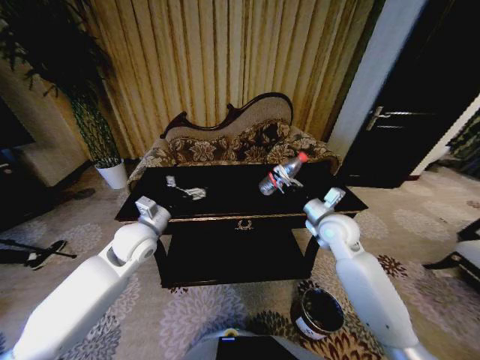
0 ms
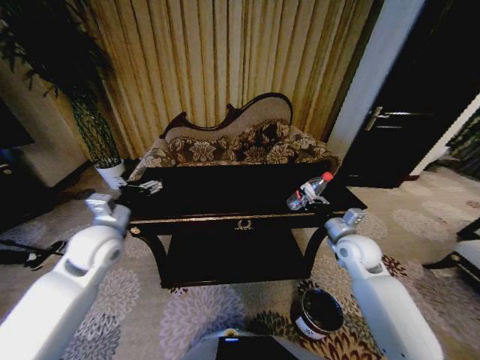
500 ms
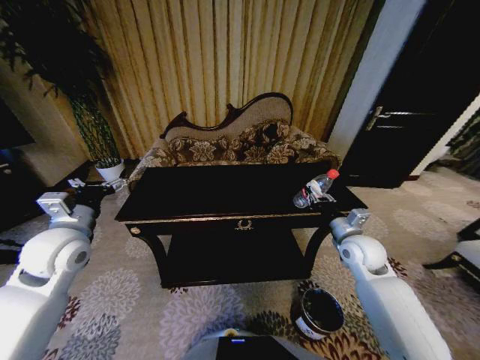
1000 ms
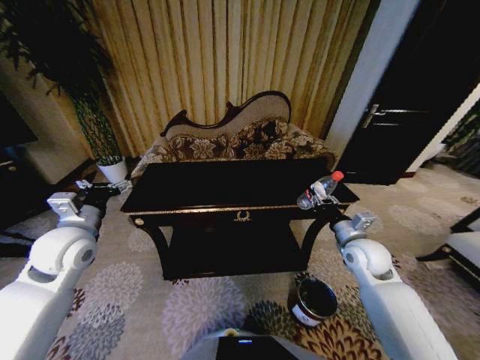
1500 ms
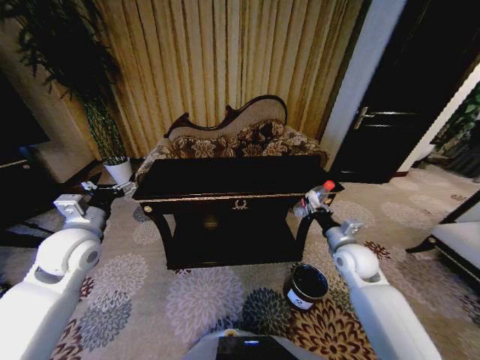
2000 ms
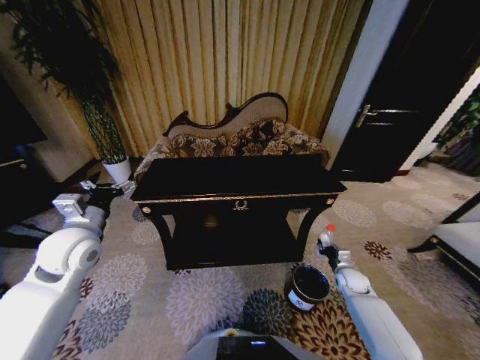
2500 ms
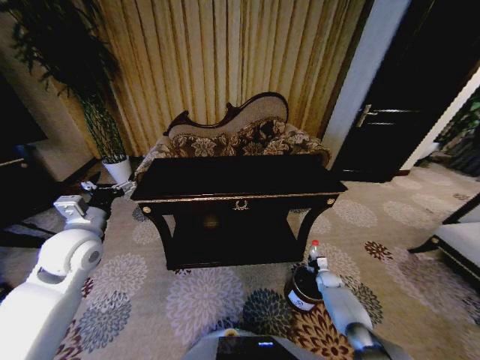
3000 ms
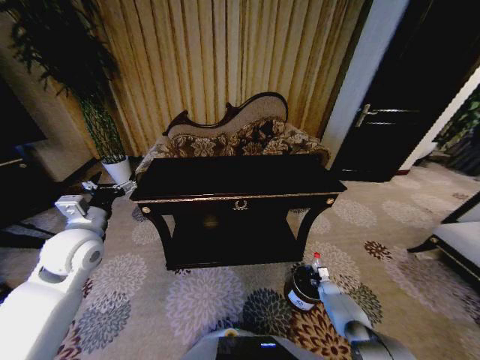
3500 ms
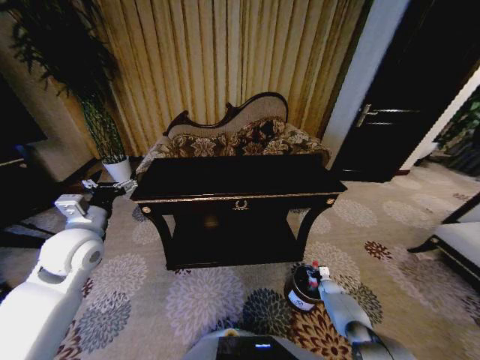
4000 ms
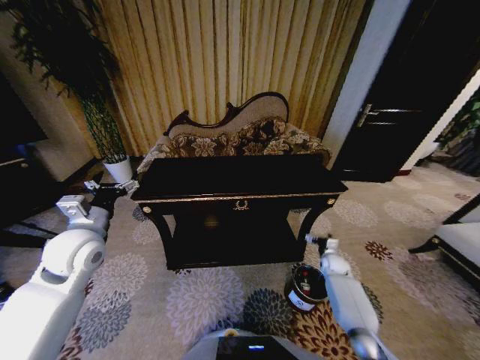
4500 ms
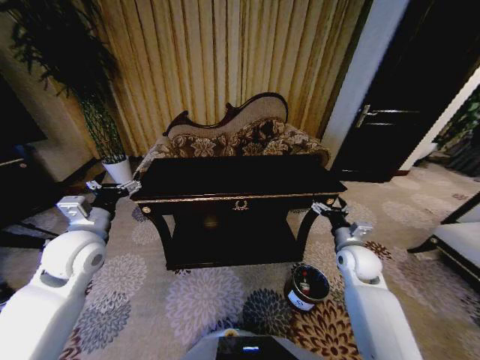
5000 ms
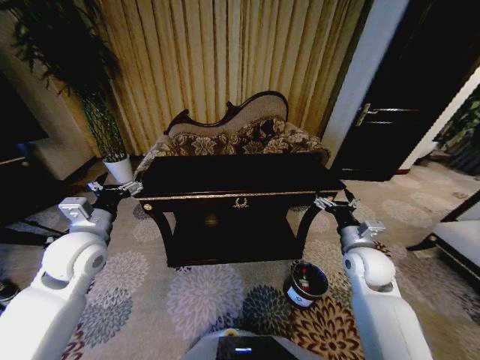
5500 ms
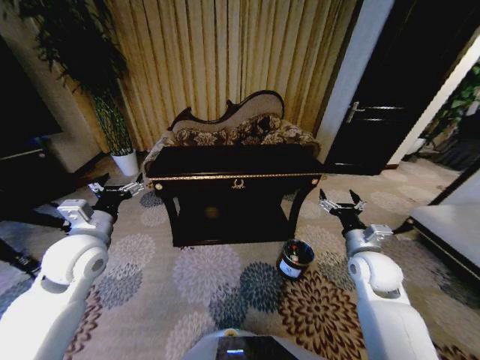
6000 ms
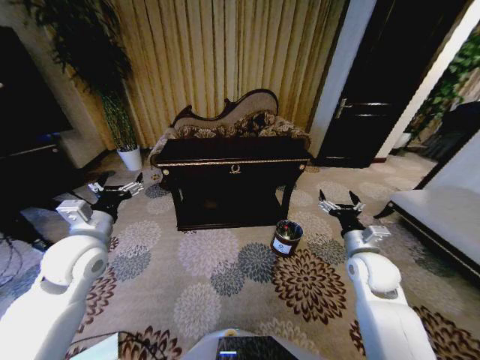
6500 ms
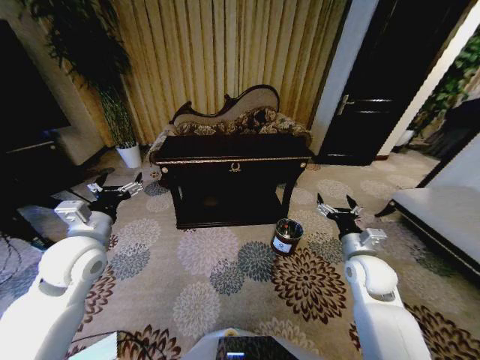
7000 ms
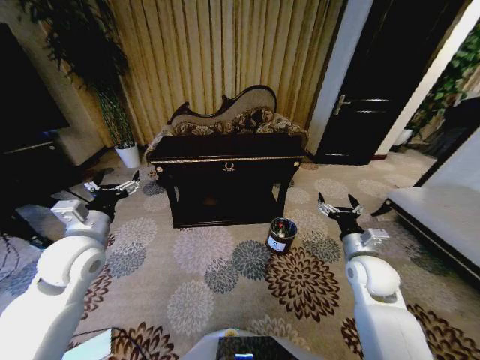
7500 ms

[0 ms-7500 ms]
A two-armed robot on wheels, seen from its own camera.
Task of the whole recording: Move to the front of the table and place the trash on the table into the trash bin.
0 ms to 2000 ms: The left gripper shifts about 10 cm to the left; the right gripper moves downward, to the right and backward, some 10 cm.
2000 ms to 4000 ms: The right gripper shifts roughly 35 cm downward, and opens up.
4000 ms to 5500 ms: The right gripper heads upward, covering about 35 cm.

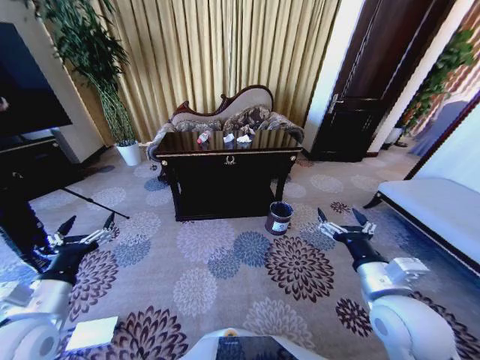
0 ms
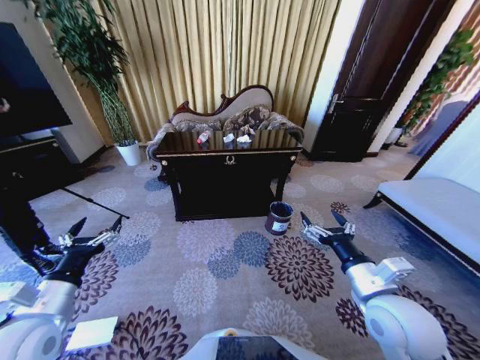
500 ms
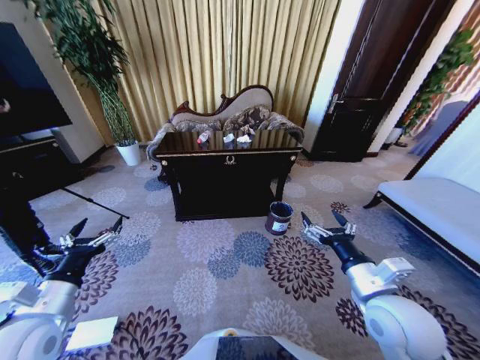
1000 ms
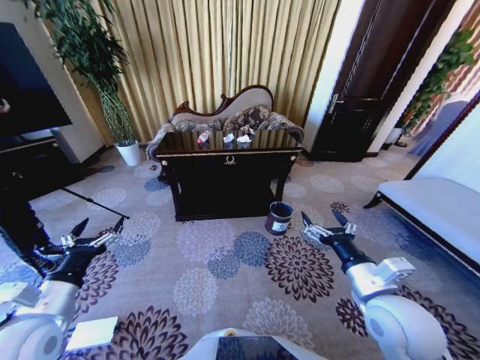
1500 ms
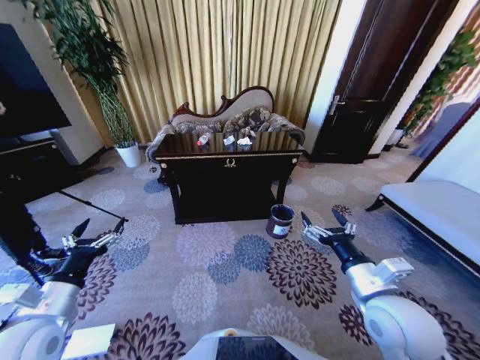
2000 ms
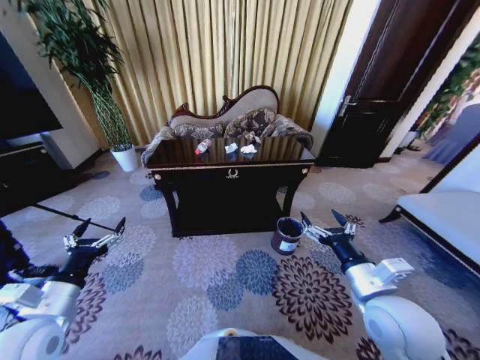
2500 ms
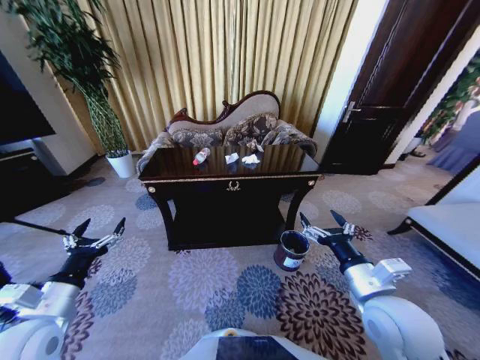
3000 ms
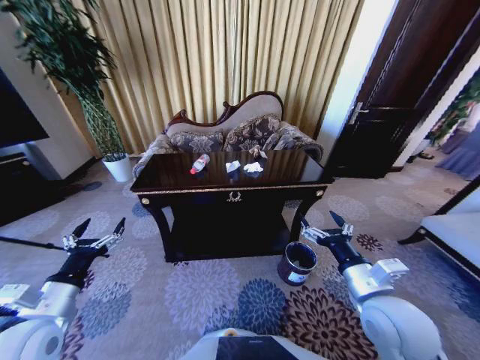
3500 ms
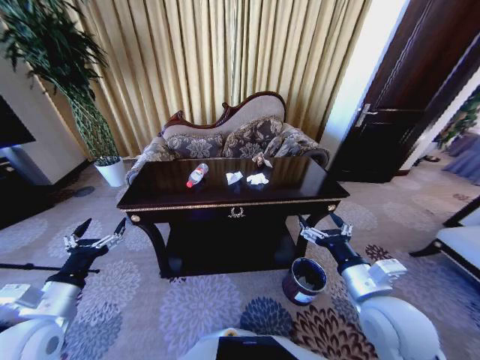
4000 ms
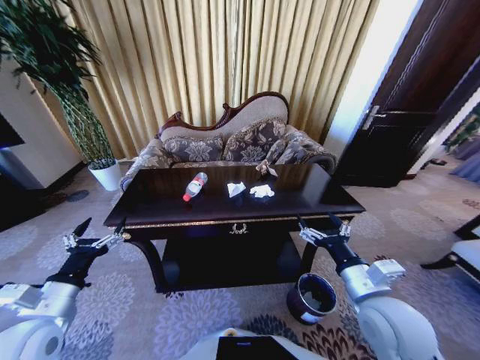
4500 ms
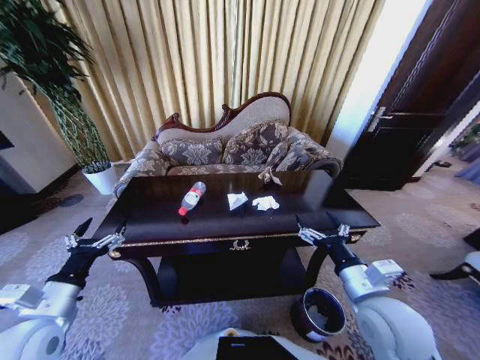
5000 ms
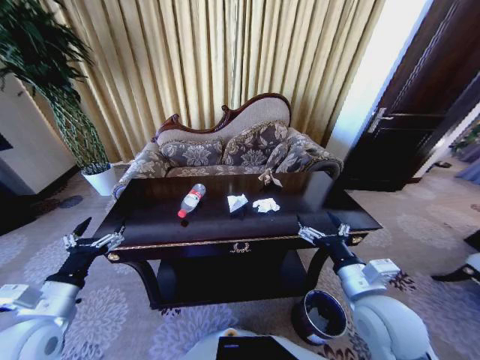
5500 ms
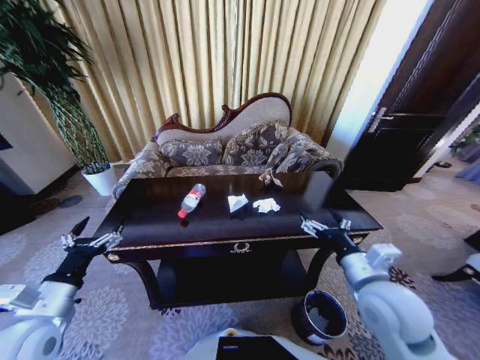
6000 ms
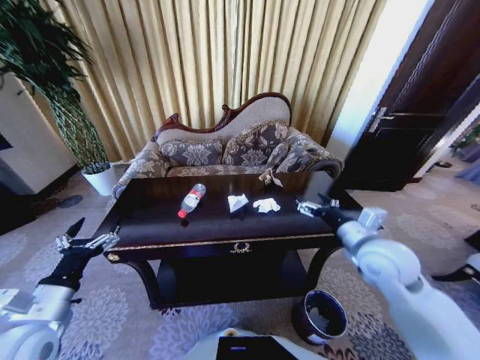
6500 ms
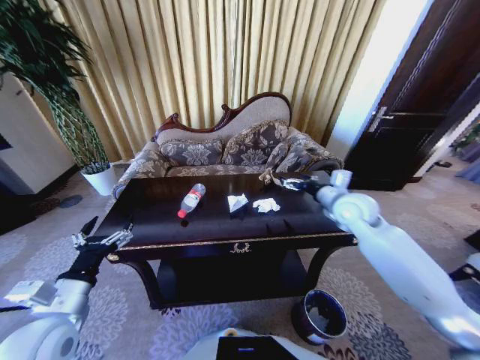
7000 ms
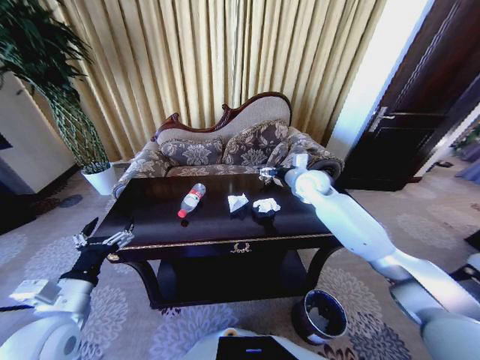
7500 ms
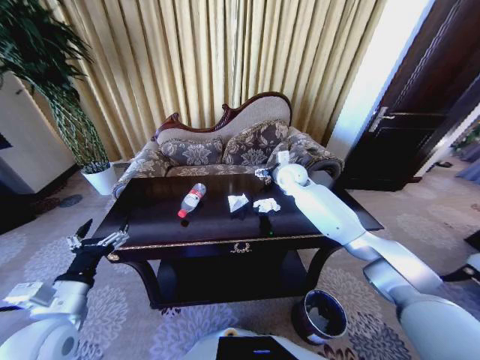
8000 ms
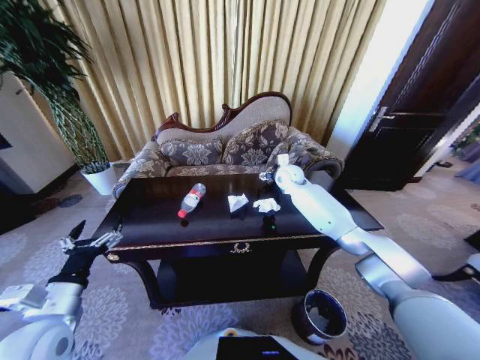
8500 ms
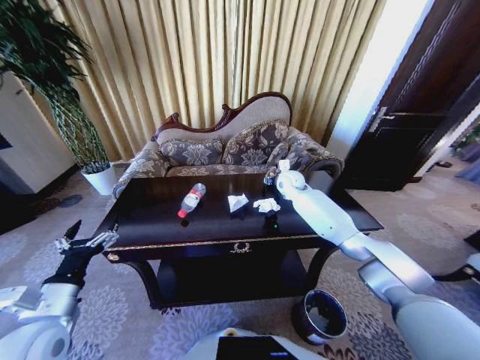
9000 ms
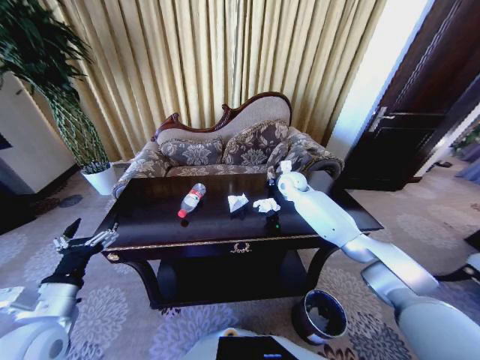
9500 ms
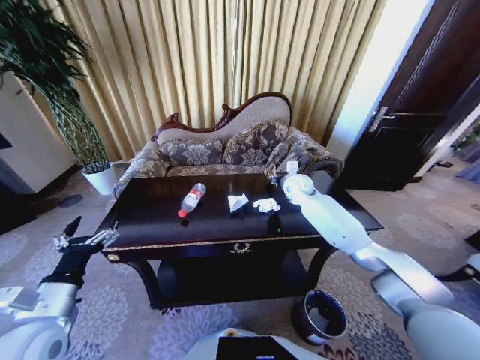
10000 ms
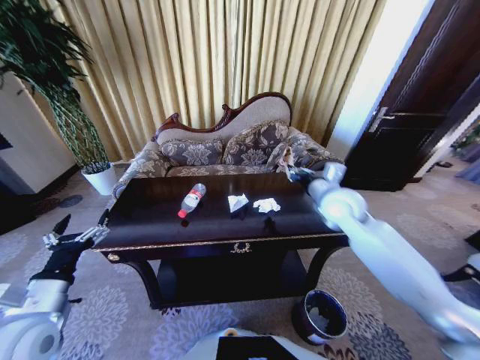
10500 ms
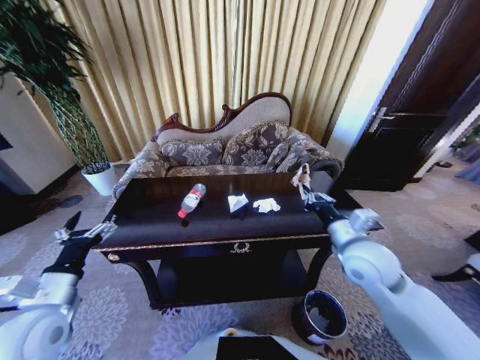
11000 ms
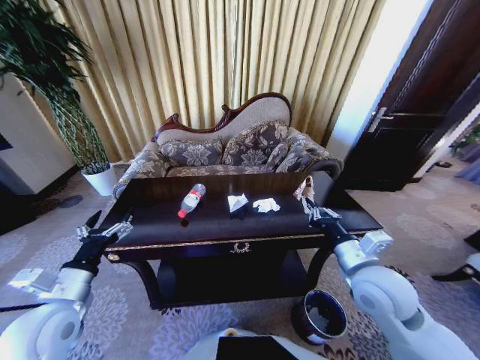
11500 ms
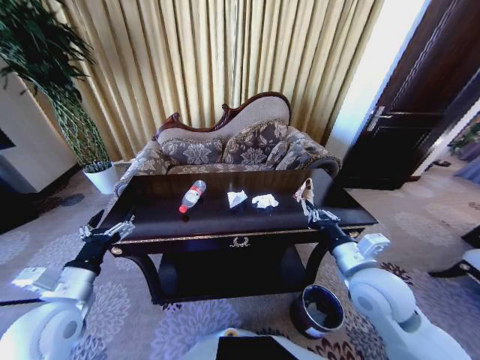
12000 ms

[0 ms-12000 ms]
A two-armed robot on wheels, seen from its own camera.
Task of the whole recording: Move to the front of the table and place the trash on the table into the trash bin.
6000 ms to 8000 ms: The right gripper goes about 35 cm forward.
8000 ms to 10000 ms: The right gripper closes up.
10000 ms to 12000 ms: The right gripper shifts roughly 35 cm backward.

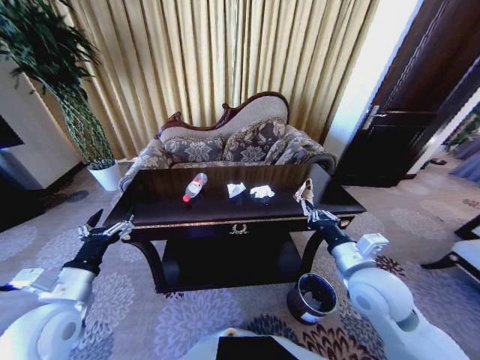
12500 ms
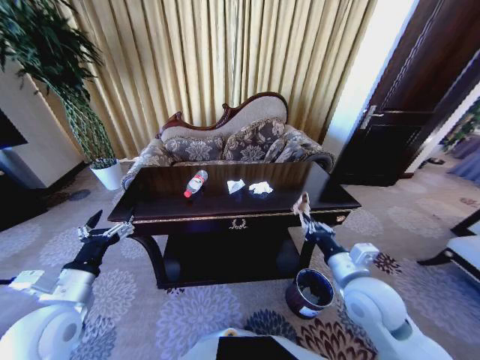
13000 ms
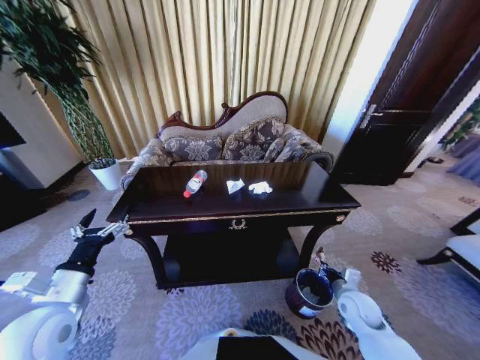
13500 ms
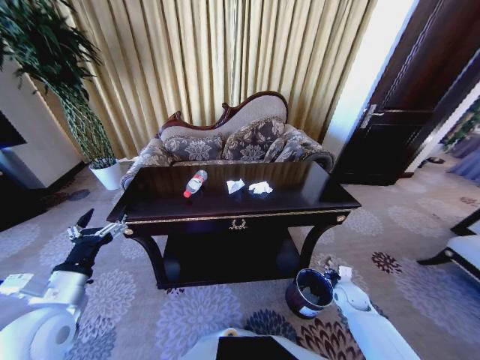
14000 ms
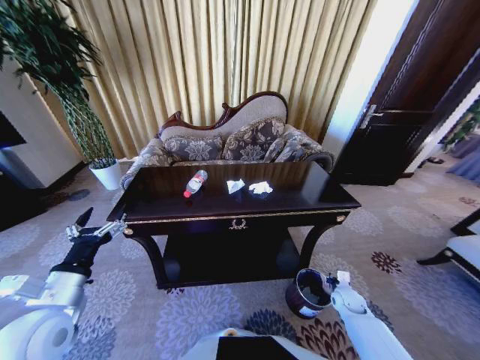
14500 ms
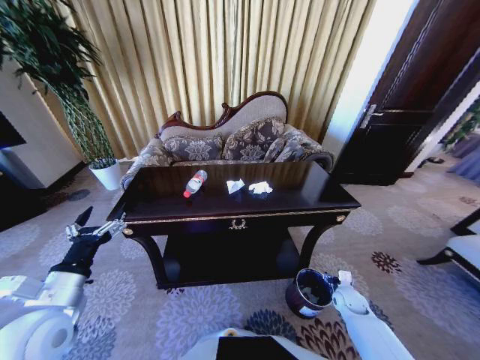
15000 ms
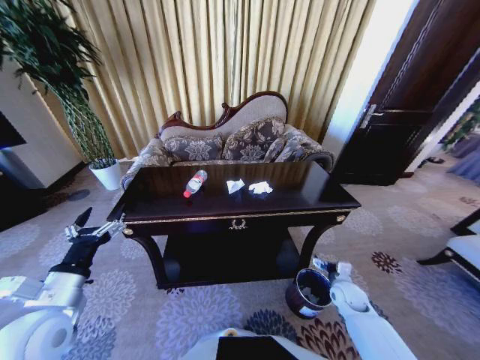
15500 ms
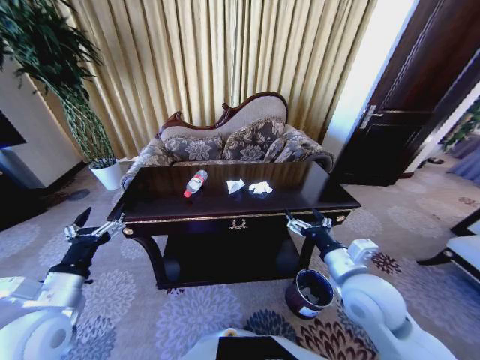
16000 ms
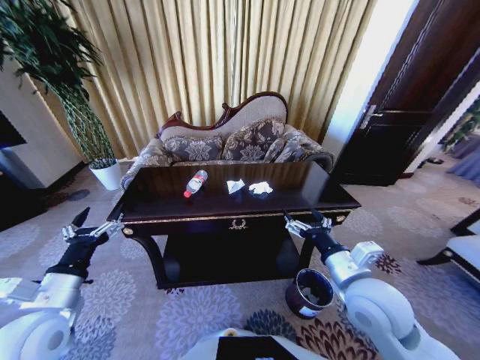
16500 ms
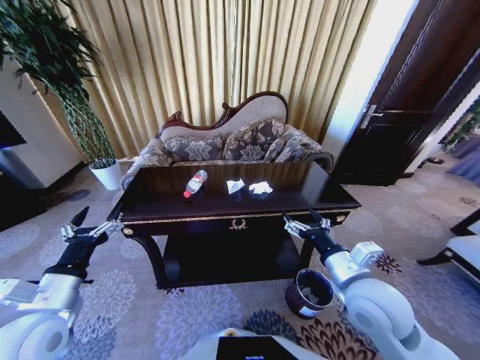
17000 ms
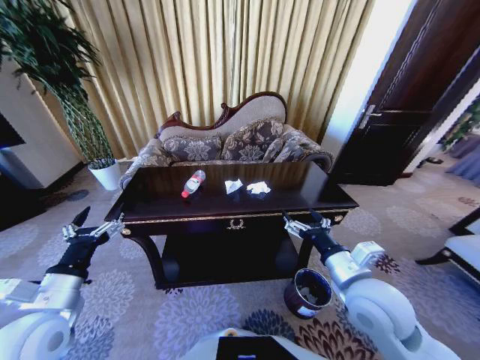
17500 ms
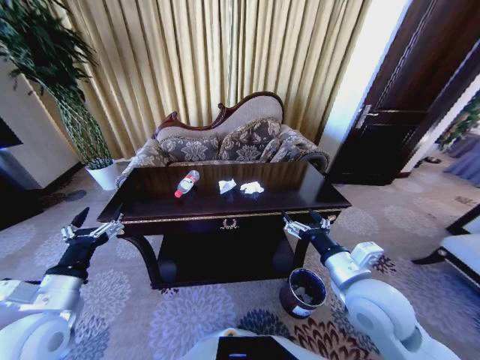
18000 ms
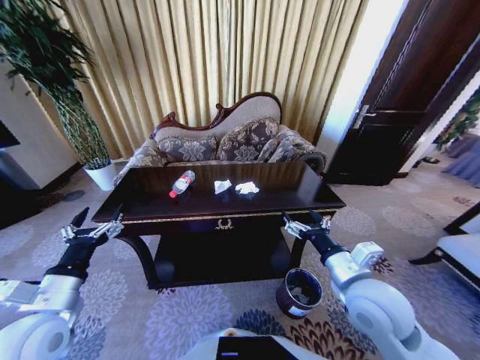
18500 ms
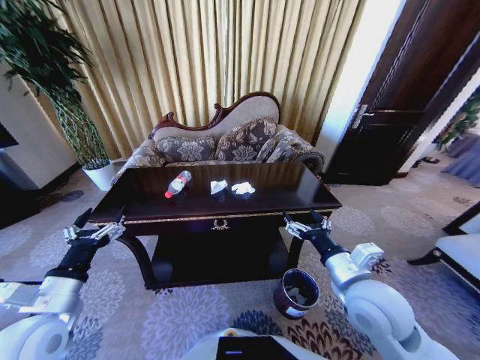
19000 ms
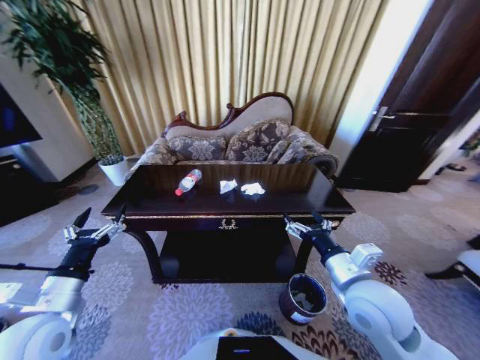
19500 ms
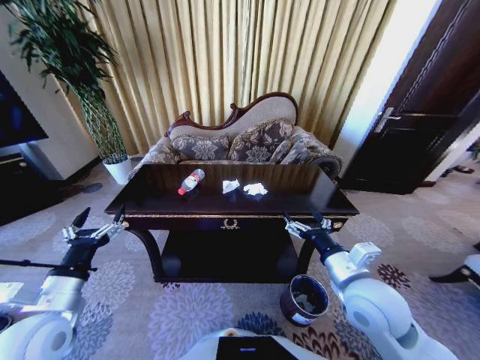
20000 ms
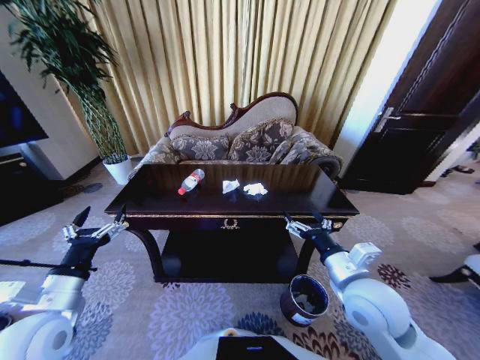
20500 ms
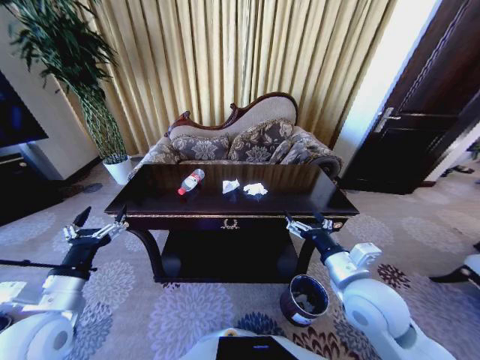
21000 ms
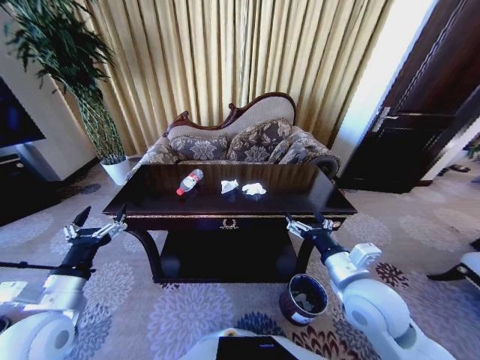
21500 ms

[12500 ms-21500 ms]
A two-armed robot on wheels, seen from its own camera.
Task of the whole recording: Move to the front of the table and place the trash on the table into the trash bin.
12500 ms to 14500 ms: The right gripper heads downward and to the right, covering about 35 cm.
14500 ms to 17000 ms: The right gripper is displaced upward and to the left by about 35 cm, and opens.
